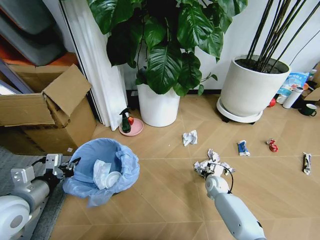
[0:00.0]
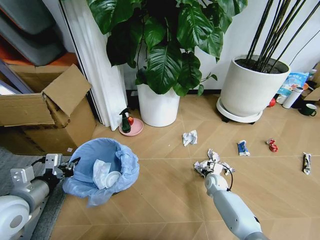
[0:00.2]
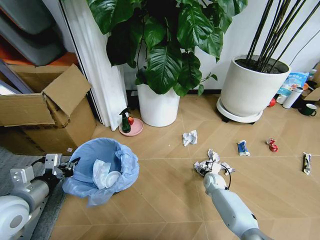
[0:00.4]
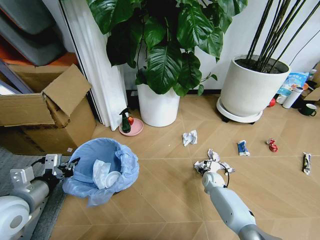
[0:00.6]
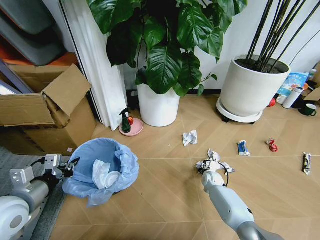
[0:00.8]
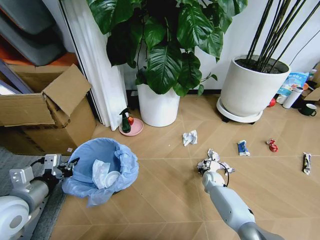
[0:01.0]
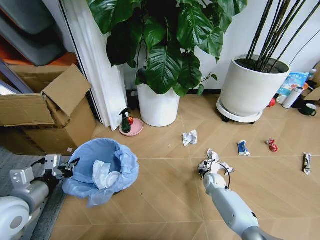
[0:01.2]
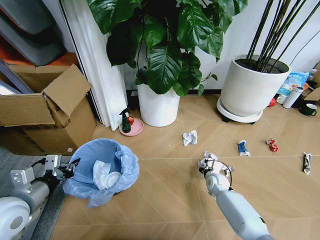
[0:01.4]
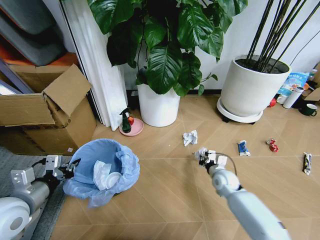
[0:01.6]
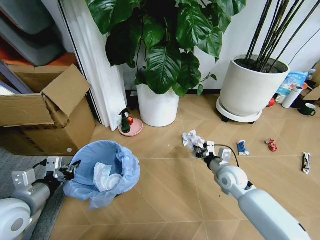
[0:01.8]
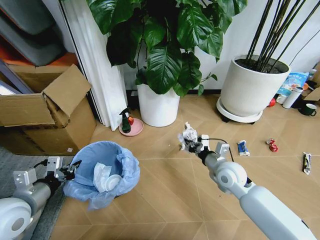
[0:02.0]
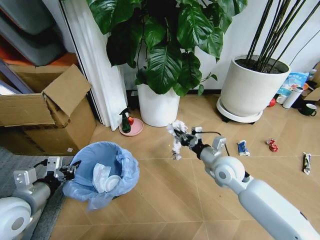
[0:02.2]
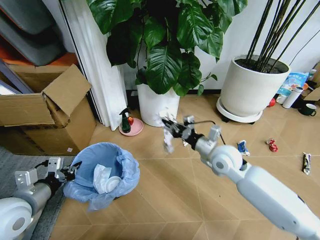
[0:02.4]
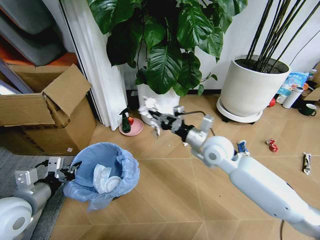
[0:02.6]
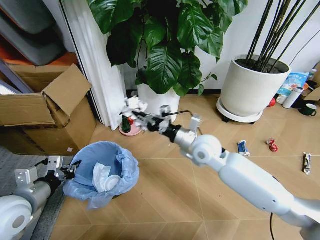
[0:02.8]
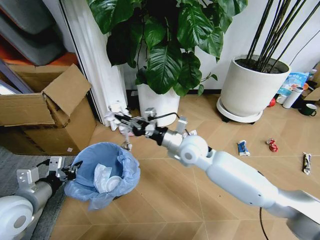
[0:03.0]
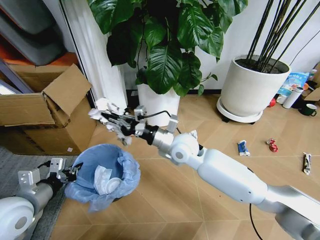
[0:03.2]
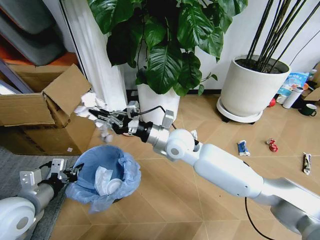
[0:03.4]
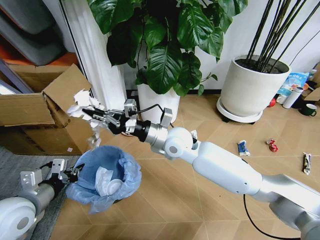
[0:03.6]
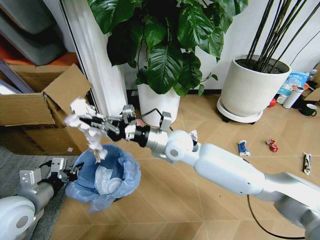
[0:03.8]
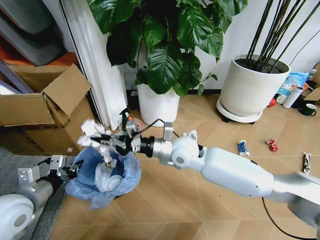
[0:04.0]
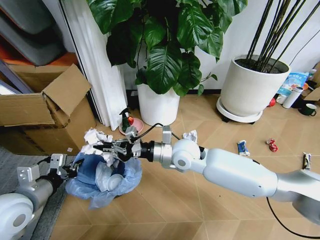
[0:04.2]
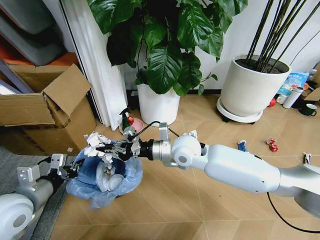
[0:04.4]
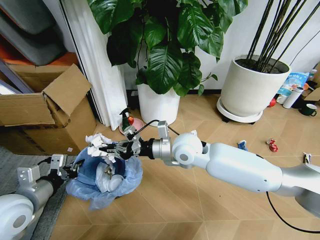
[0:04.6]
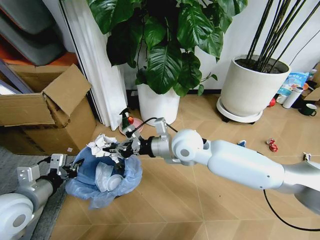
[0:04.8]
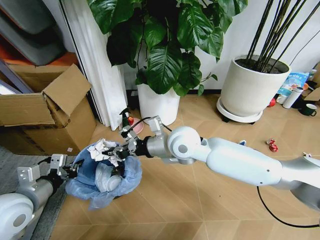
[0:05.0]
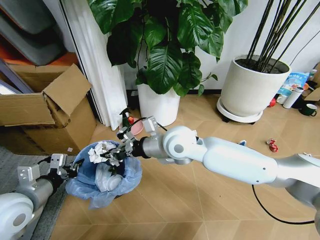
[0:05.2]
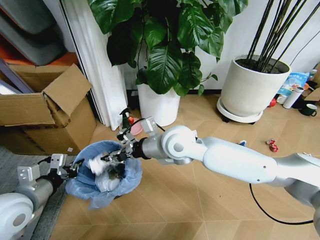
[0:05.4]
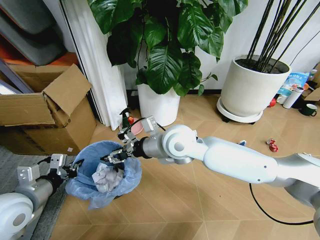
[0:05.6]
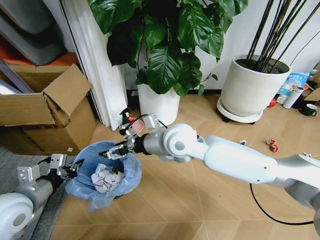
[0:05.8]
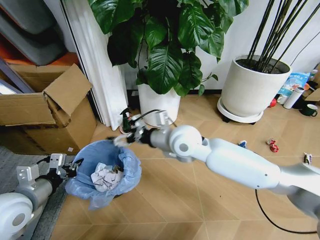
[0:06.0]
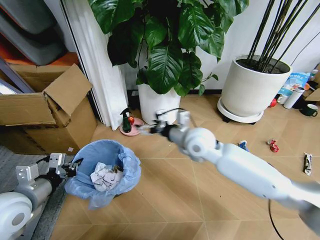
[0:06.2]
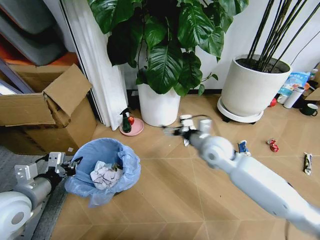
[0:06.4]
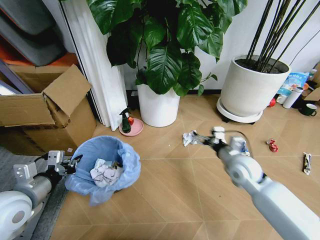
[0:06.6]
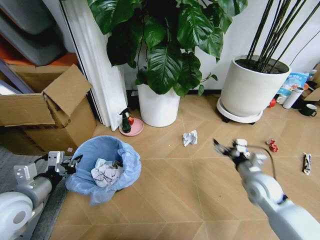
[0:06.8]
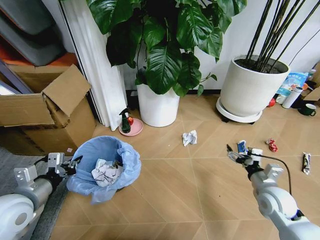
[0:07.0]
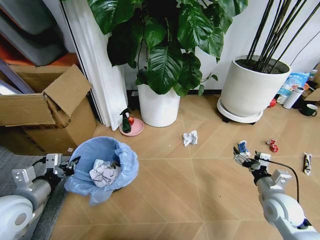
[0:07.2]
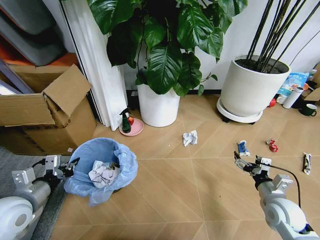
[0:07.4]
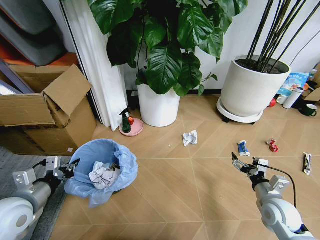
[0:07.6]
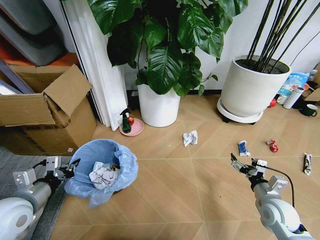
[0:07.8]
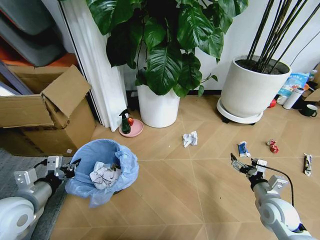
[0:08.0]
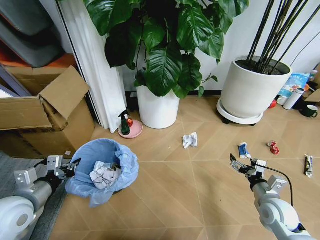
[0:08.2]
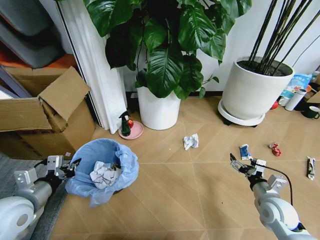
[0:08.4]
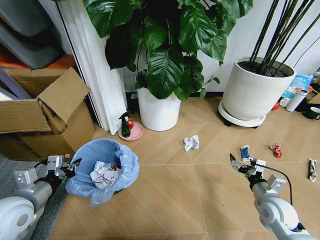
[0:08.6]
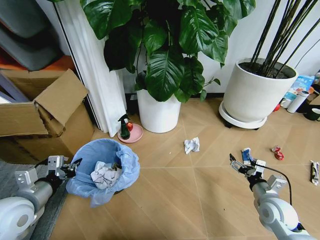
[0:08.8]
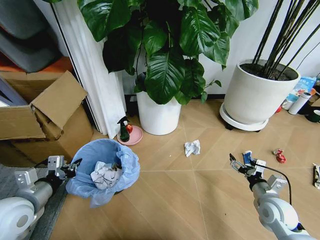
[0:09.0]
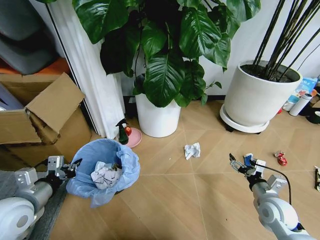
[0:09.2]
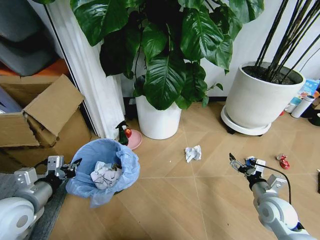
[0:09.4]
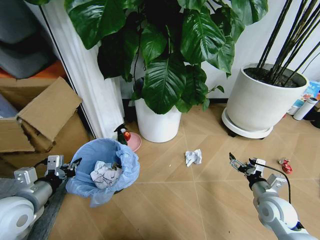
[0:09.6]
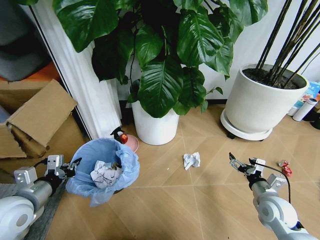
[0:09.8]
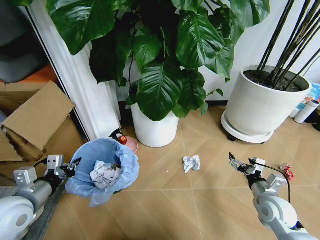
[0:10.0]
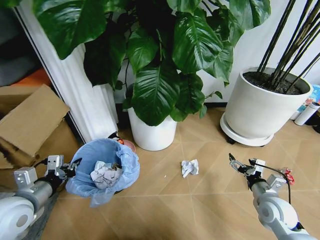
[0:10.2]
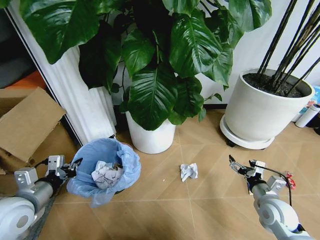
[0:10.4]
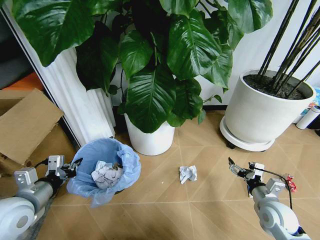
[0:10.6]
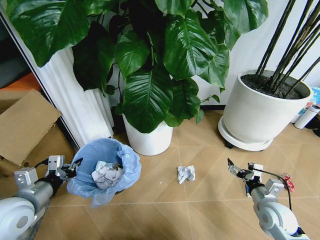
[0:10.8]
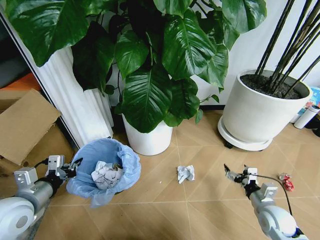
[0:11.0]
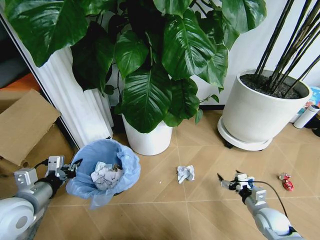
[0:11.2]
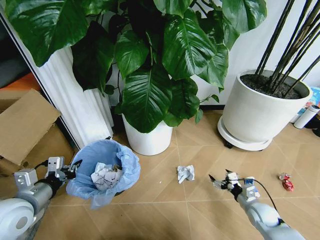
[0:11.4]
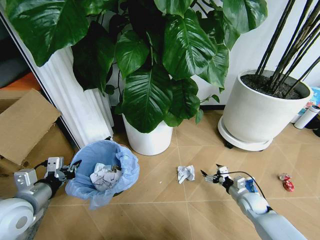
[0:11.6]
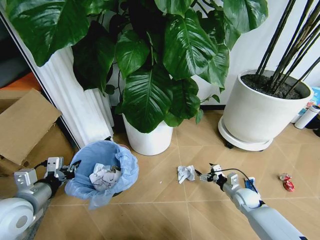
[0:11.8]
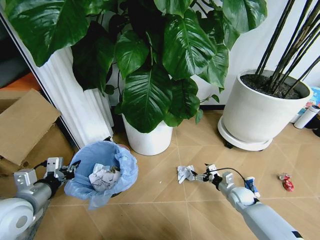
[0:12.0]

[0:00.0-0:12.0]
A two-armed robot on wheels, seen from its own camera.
Task of the whole recording: Pick up the trash bin and place the garbage on the floor into it.
0:00.0 to 0:01.6: The right gripper shifts approximately 10 cm upward, and closes its fingers.
0:01.6 to 0:03.0: The right gripper shifts roughly 25 cm upward and to the left.
0:04.4 to 0:06.0: The right gripper opens up.
0:06.0 to 0:07.6: The right gripper moves to the right, downward and backward, about 40 cm.
0:10.4 to 0:12.0: The right gripper moves downward and forward, roughly 15 cm.

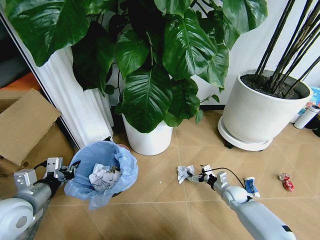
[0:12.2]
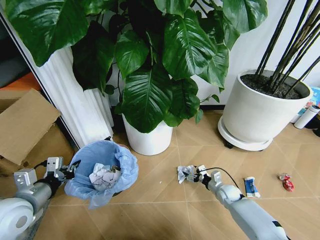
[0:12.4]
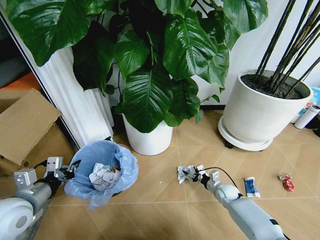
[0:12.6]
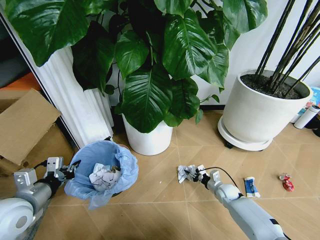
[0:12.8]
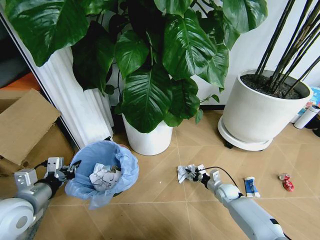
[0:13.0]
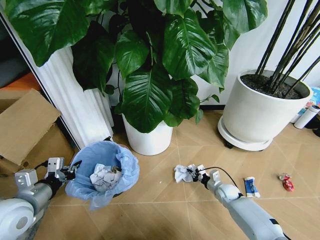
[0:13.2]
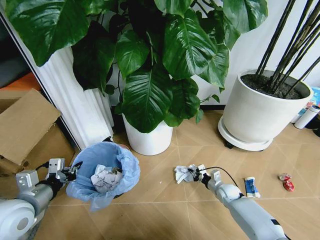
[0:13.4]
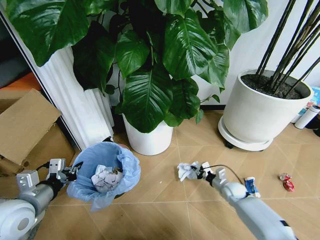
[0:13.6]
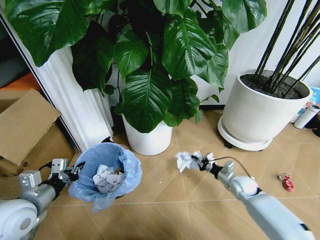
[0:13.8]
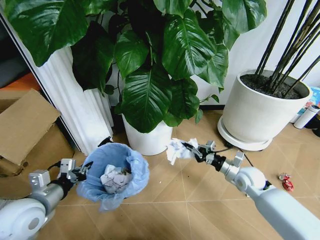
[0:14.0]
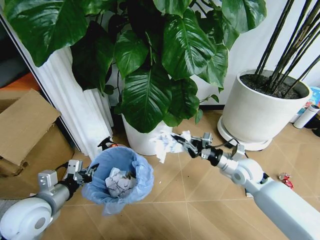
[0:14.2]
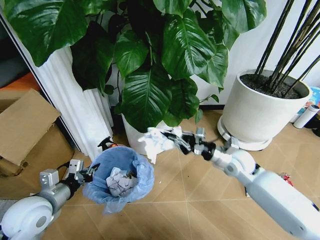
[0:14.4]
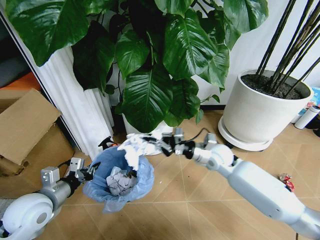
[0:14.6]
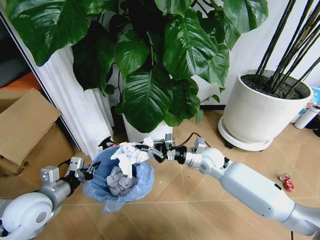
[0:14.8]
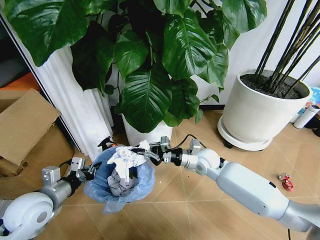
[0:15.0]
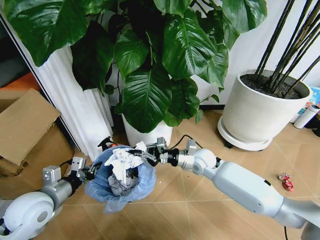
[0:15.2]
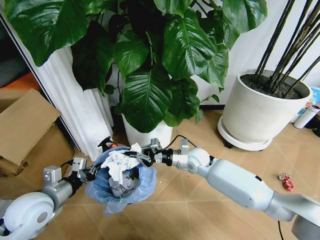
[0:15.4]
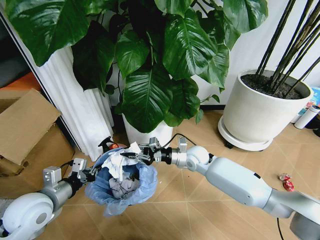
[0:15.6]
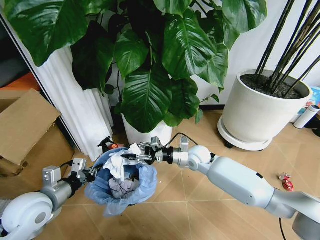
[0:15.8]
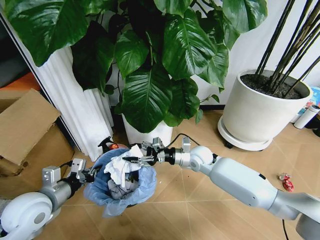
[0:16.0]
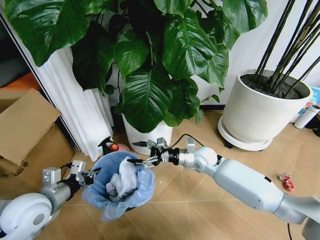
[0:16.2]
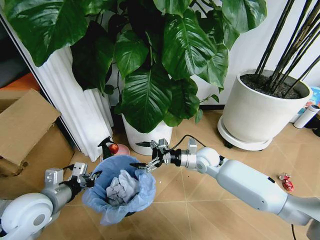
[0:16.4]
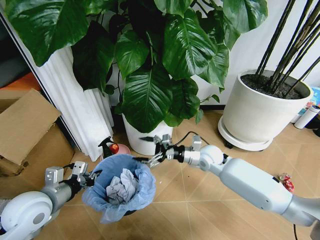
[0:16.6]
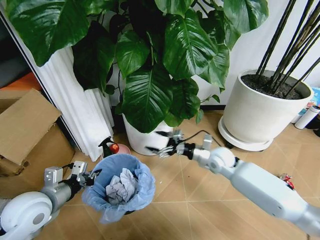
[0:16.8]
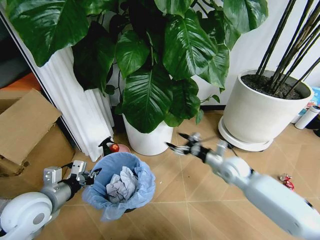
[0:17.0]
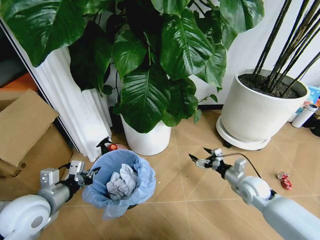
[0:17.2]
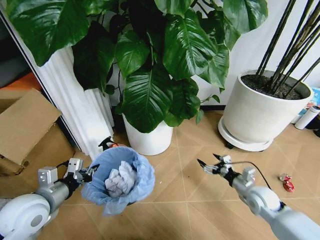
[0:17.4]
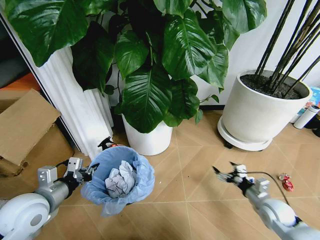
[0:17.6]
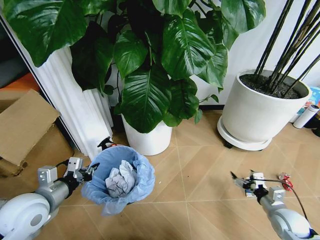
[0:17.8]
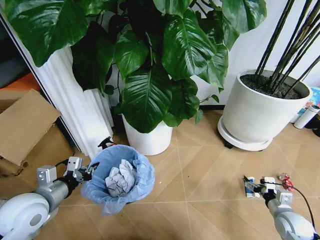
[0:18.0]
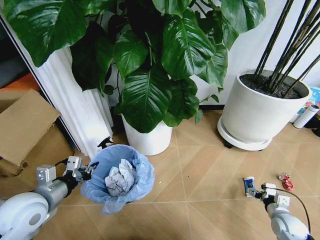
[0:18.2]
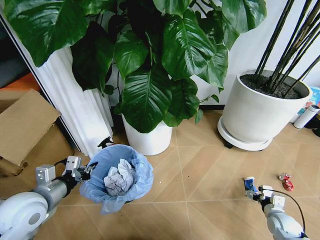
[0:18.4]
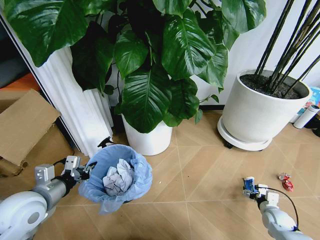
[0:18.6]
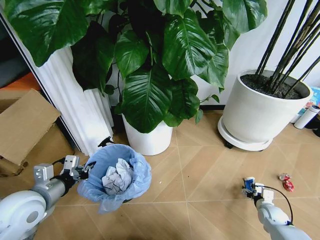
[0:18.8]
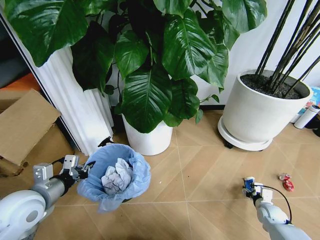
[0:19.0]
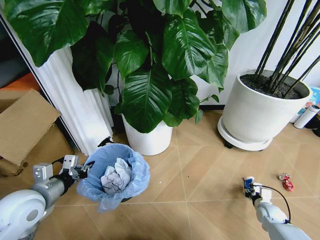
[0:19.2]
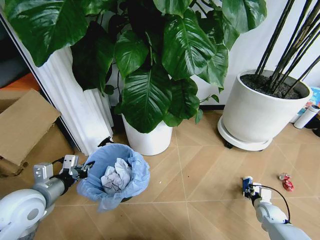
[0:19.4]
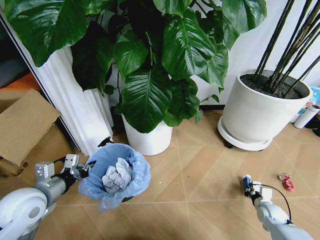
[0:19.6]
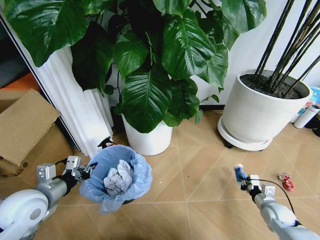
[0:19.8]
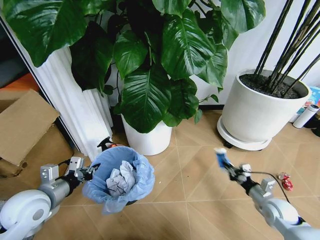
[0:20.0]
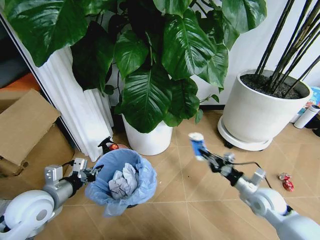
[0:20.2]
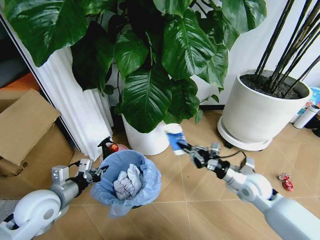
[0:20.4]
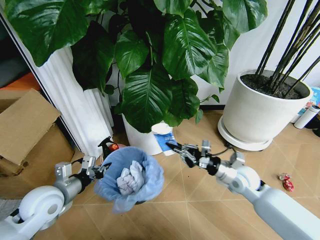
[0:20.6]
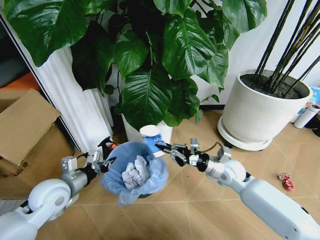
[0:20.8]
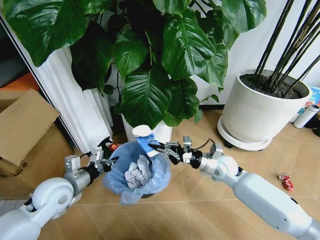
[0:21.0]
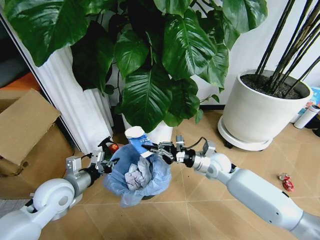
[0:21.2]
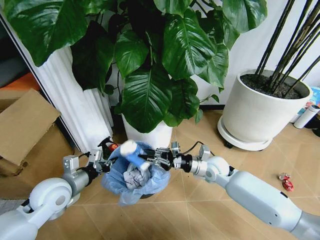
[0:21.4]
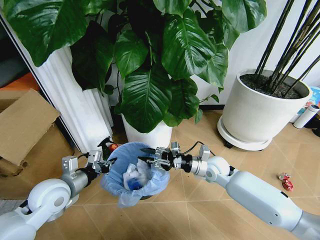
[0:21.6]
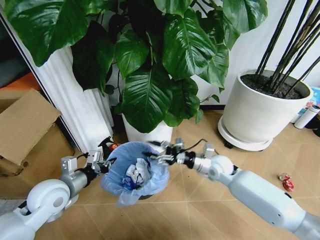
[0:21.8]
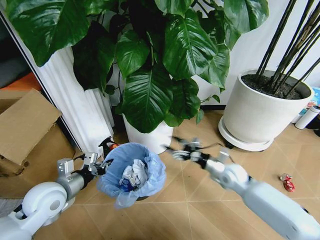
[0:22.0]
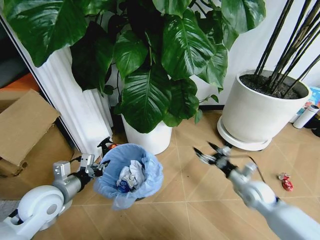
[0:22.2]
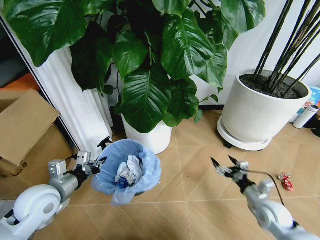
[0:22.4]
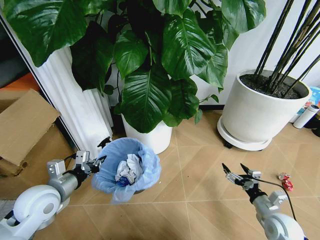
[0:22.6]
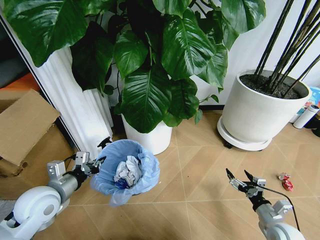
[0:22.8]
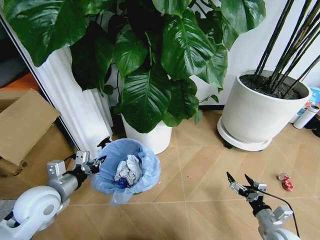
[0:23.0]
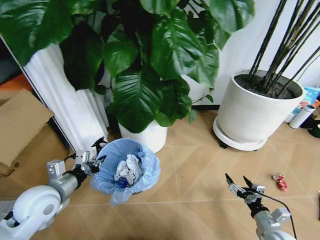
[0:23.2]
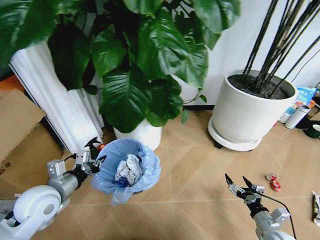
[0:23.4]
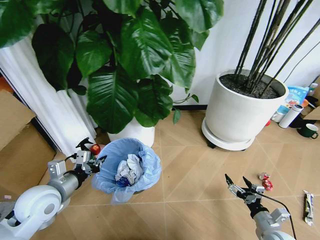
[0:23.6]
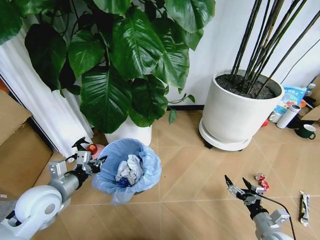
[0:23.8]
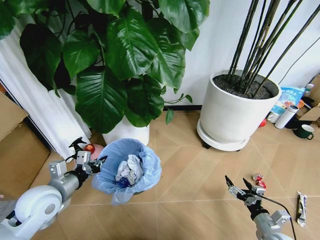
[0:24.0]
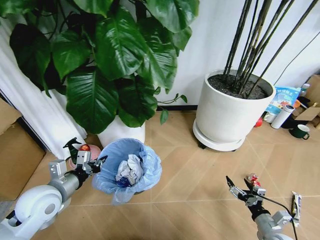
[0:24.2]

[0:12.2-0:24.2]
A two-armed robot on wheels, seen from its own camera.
Task of the whole recording: Pick up the trash bin and place the garbage on the floor into it.
0:12.2 to 0:13.8: The right gripper heads upward, covering roughly 10 cm, and closes.
0:13.8 to 0:15.2: The right gripper shifts roughly 20 cm to the left and upward.
0:15.2 to 0:16.6: The right gripper opens its fingers.
0:16.6 to 0:18.2: The right gripper goes some 40 cm to the right, backward and downward.
0:18.2 to 0:19.8: The right gripper closes up.
0:19.8 to 0:21.2: The right gripper shifts roughly 30 cm to the left, upward and forward, while the left gripper shifts by approximately 5 cm.
0:21.2 to 0:22.6: The right gripper moves backward, to the right and downward, roughly 30 cm, and opens.
0:22.6 to 0:24.2: The right gripper is displaced backward by approximately 5 cm.
